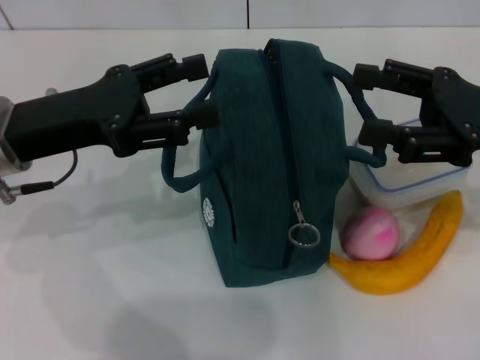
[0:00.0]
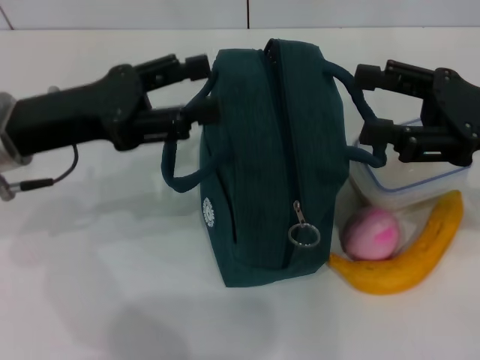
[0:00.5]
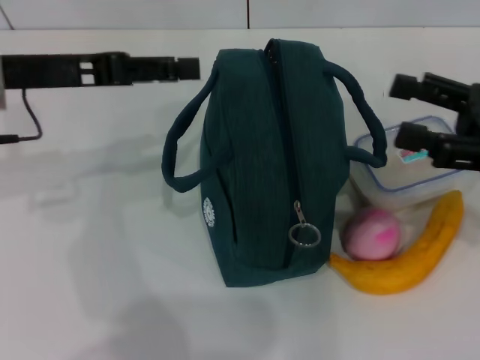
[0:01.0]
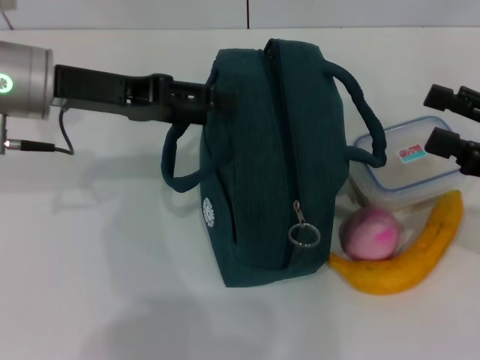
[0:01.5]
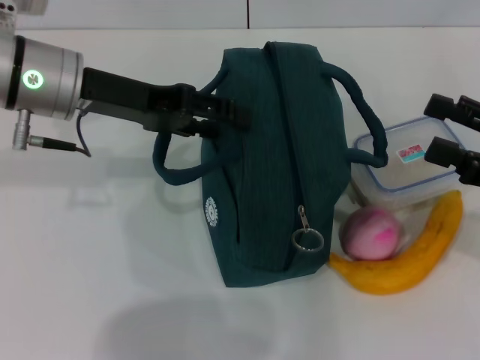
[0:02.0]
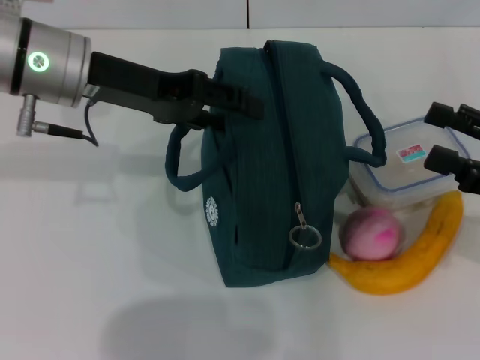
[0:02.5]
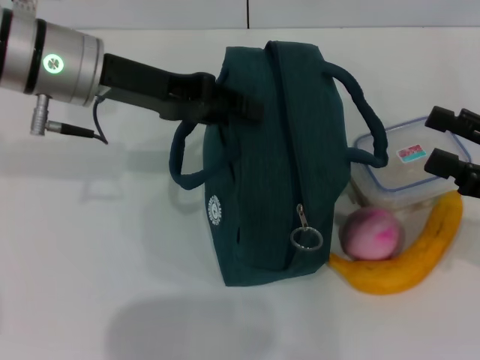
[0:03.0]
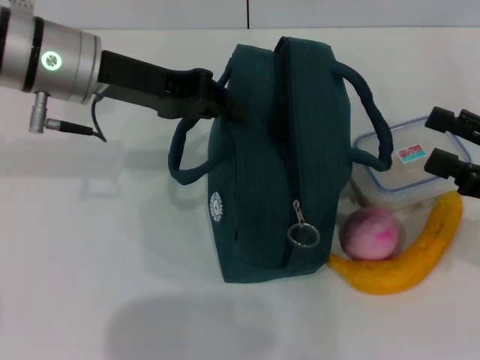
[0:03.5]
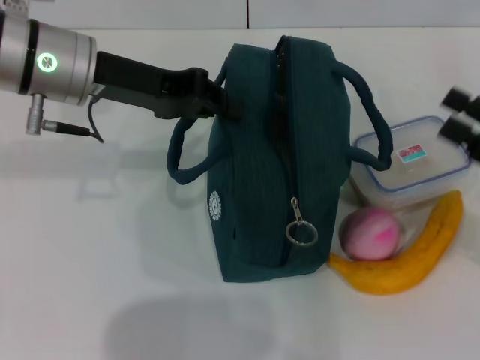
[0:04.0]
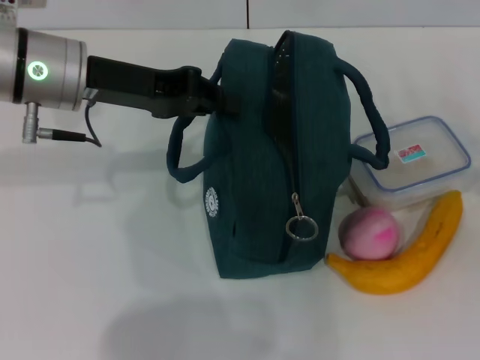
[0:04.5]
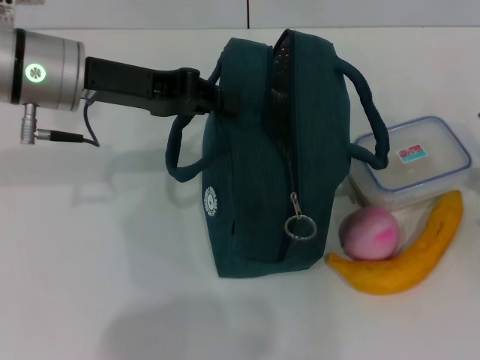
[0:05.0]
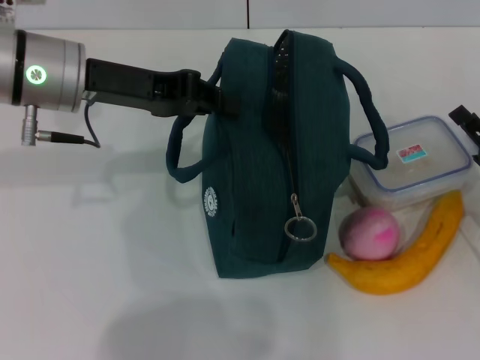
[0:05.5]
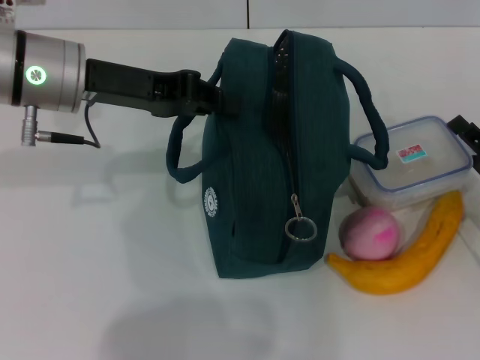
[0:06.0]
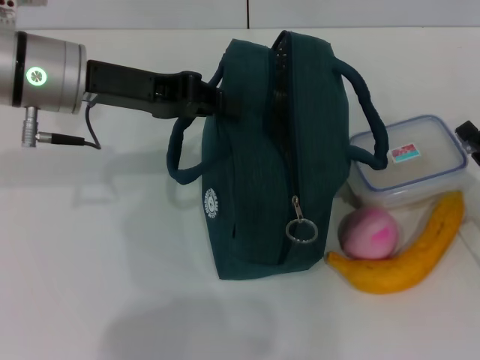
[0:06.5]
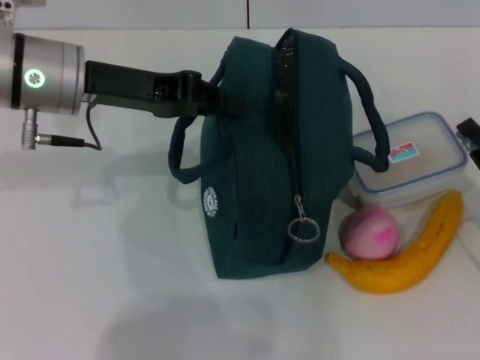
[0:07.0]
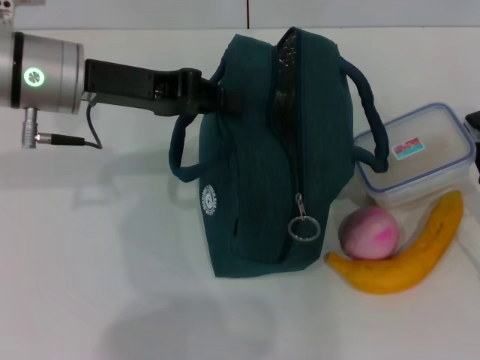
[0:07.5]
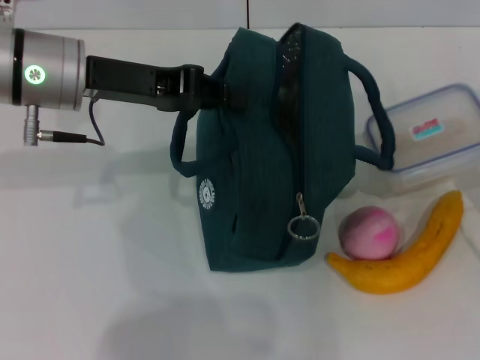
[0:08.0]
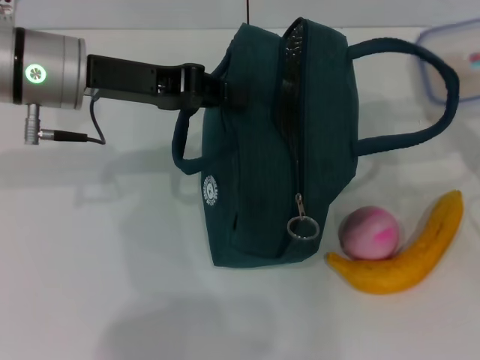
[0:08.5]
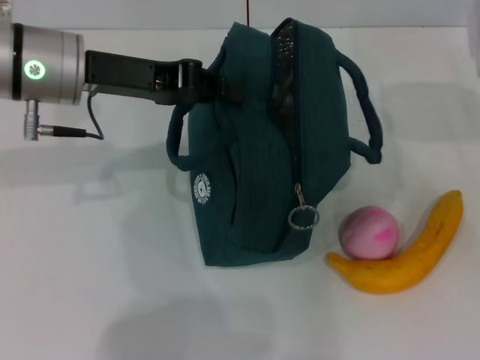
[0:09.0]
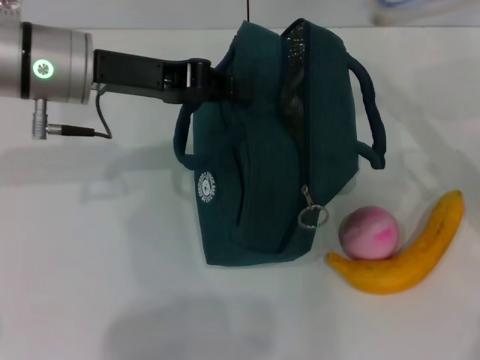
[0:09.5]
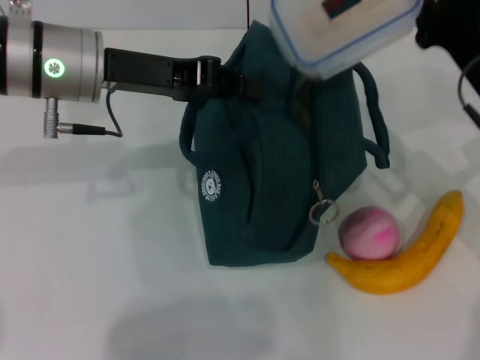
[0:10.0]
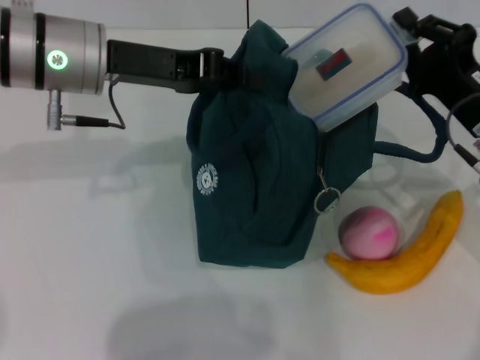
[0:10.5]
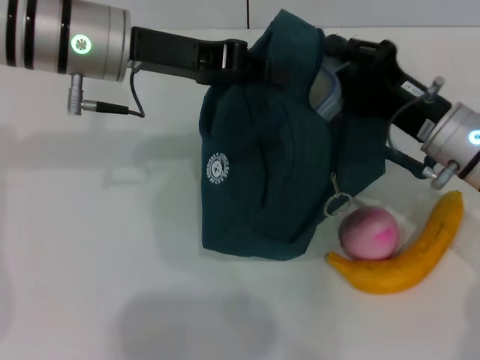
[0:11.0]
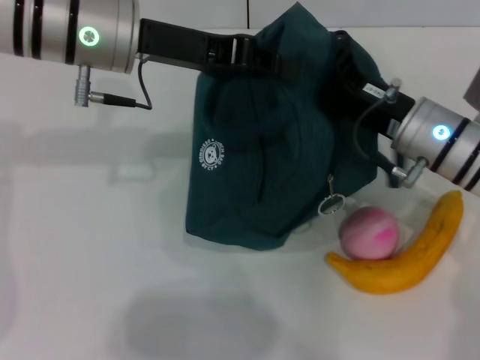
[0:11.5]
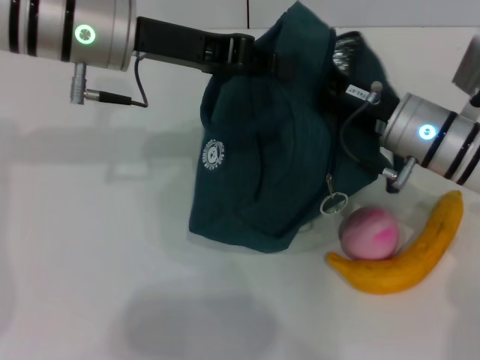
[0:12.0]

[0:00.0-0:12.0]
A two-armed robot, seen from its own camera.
Step, 0:00.0 to 0:03.5: Hold the lunch bag with your left hand.
Step, 0:04.0 to 0:07.5: Pick up the lunch box with your right hand.
0:00.0 to 0:02.0: The left gripper shifts approximately 5 cm forward; the right gripper goes approximately 5 cm to the right.
0:02.0 to 0:04.0: The left gripper closes.
0:04.0 to 0:06.0: The right gripper shifts roughly 10 cm downward.
0:06.0 to 0:08.0: The right gripper closes up.
0:08.0 to 0:10.0: The right gripper travels forward, to the left and upward by some 15 cm.
0:10.0 to 0:12.0: The right gripper travels to the left by approximately 5 cm.

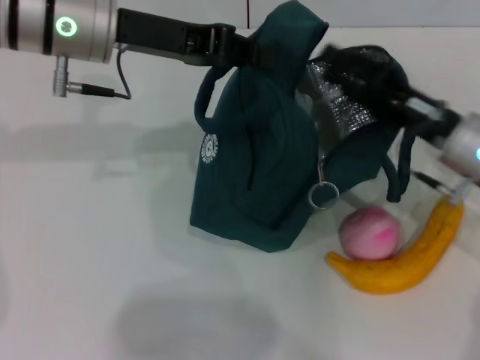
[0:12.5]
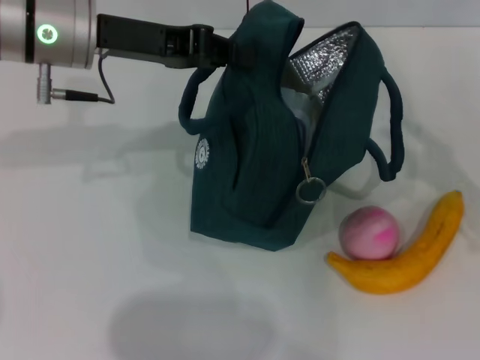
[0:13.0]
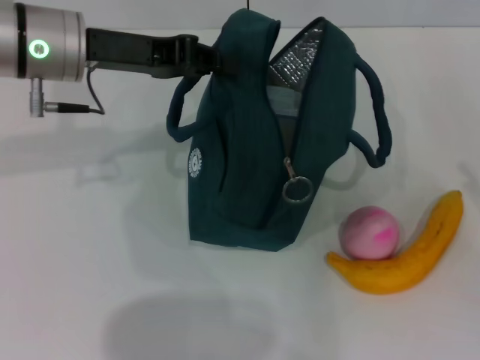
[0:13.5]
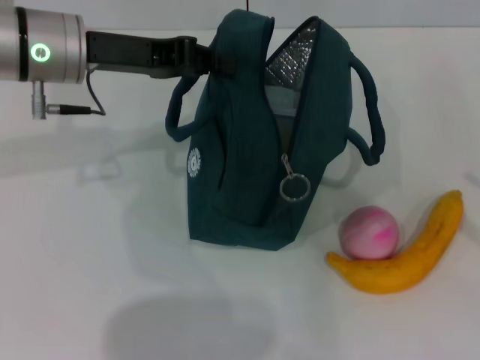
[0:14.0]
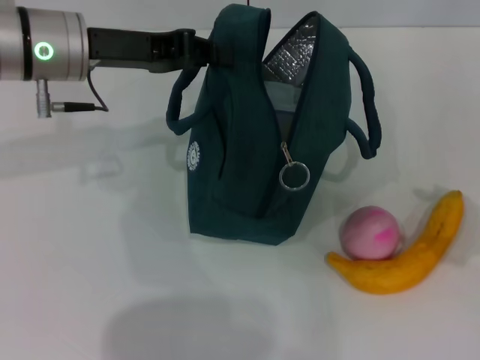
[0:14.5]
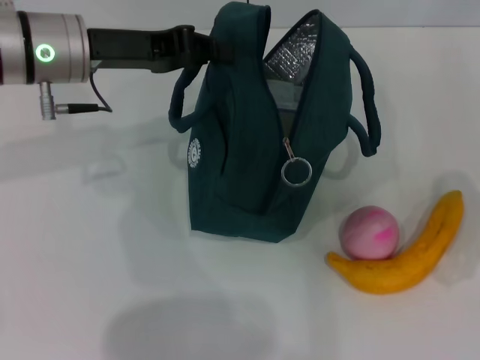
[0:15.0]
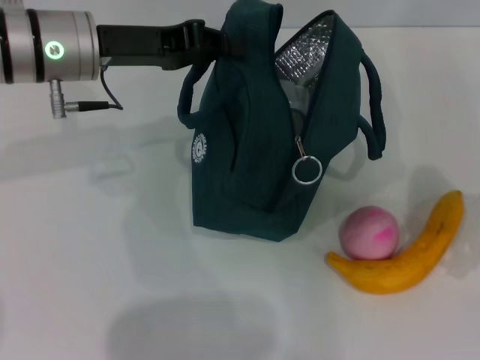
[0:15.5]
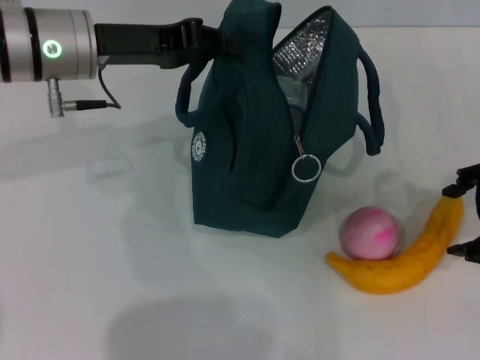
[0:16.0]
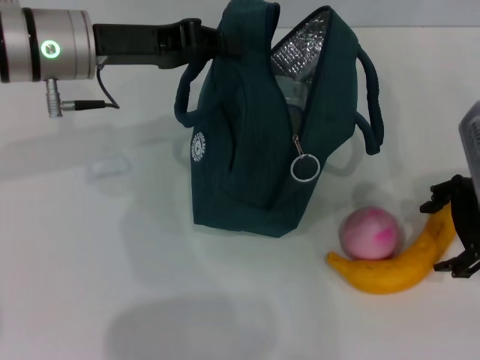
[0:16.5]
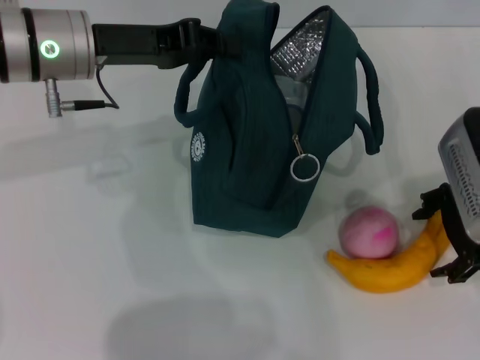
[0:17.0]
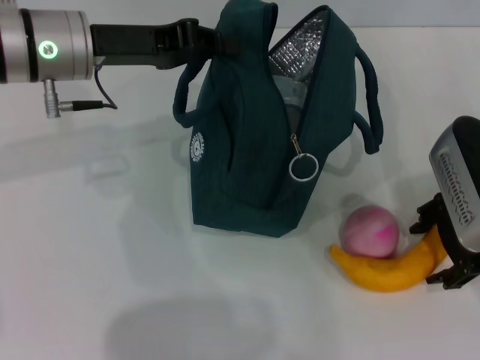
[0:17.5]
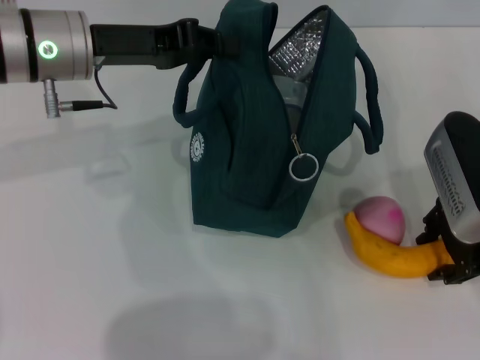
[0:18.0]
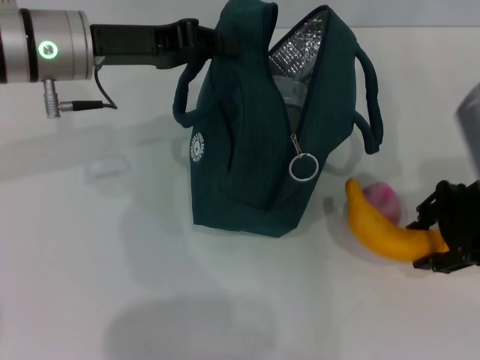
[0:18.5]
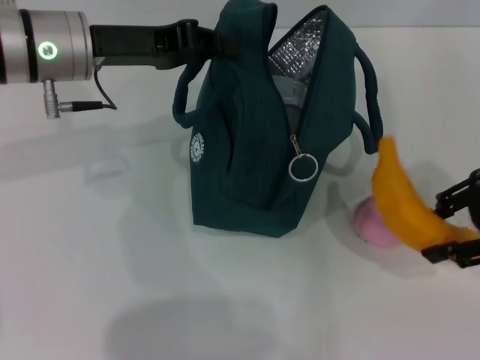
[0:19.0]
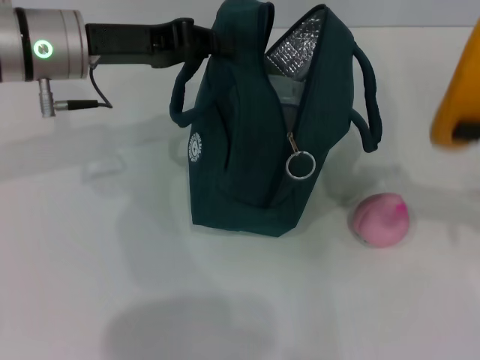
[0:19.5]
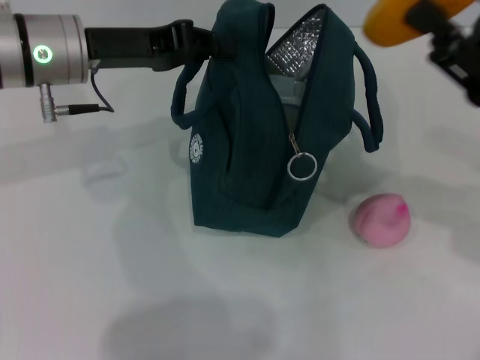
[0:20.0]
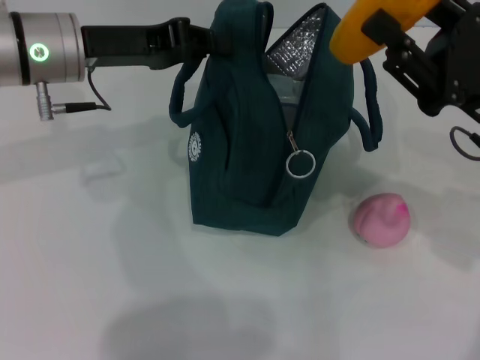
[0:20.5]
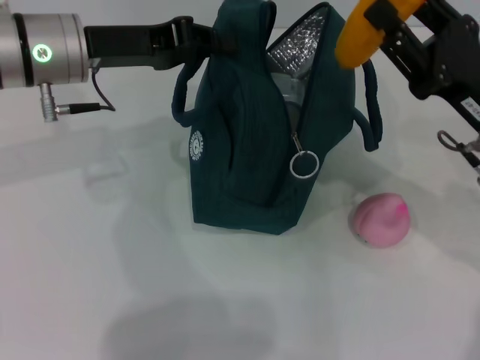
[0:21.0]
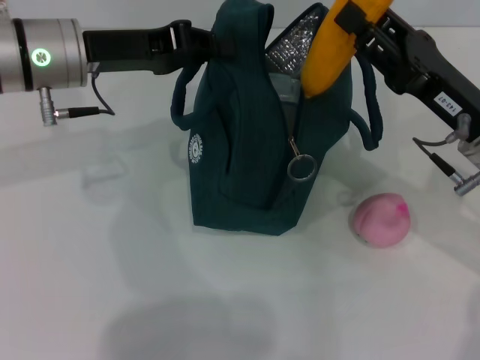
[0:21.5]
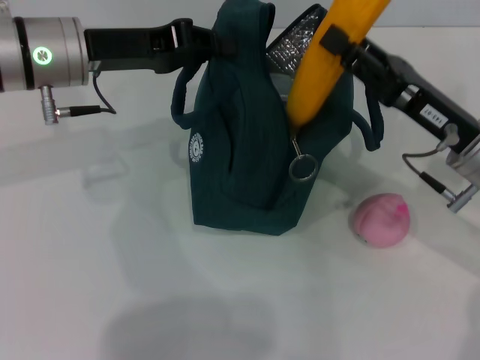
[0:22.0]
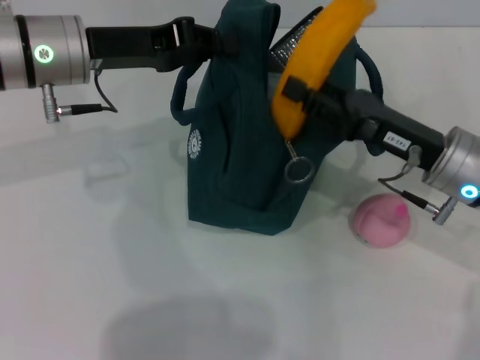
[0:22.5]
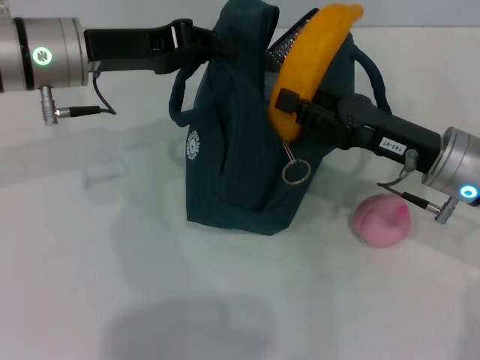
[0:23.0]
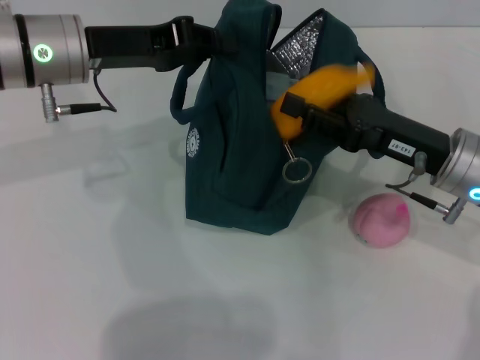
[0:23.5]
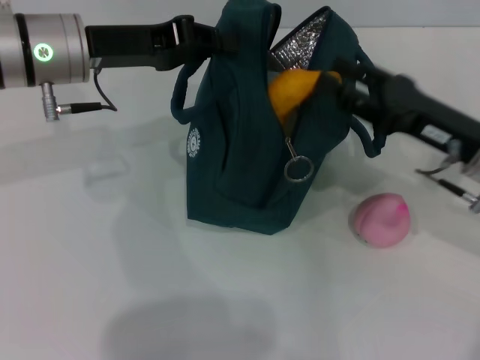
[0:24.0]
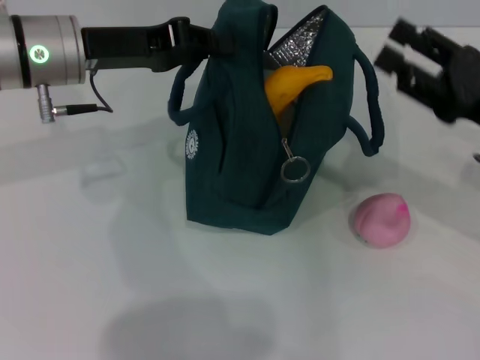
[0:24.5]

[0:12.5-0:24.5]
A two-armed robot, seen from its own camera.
Step, 0:12.5 to 0:18.0: Take the banana with your right hand.
Step, 0:18.5 to 0:23.5: Put the banana into the lunch bag with your right hand.
0:12.5 to 0:14.5: The right gripper travels to the right, upward and backward by about 20 cm, and opens.
0:14.5 to 0:16.5: The right gripper shifts about 15 cm to the left and forward.
0:16.5 to 0:18.5: The right gripper closes up.
0:18.5 to 0:20.5: The right gripper goes to the right and returns, about 10 cm each way.
0:20.5 to 0:22.5: The right gripper ends up roughly 5 cm from where it was.
0:22.5 to 0:24.5: The right gripper moves to the right, approximately 10 cm.

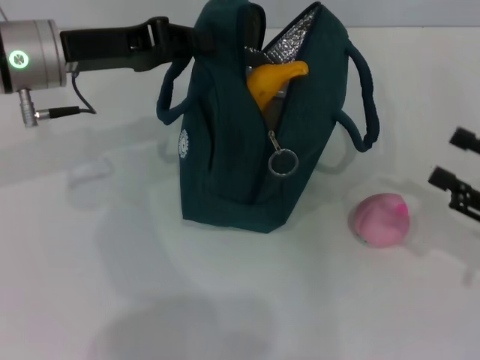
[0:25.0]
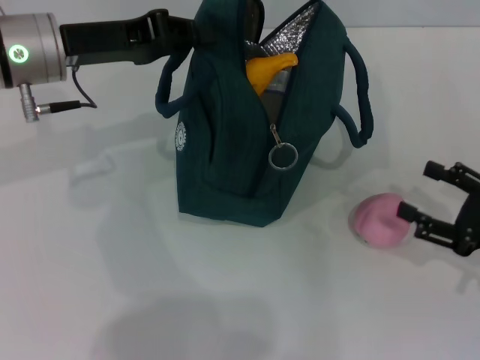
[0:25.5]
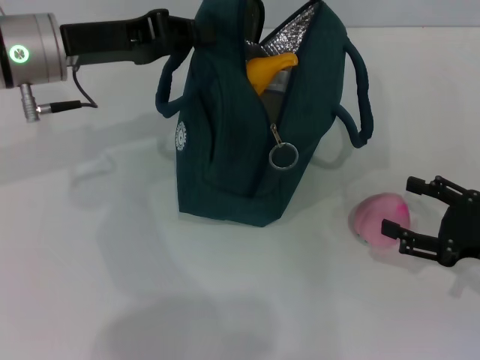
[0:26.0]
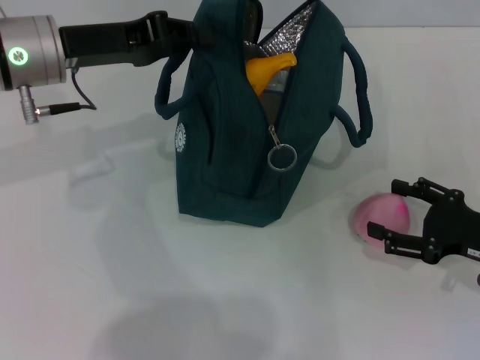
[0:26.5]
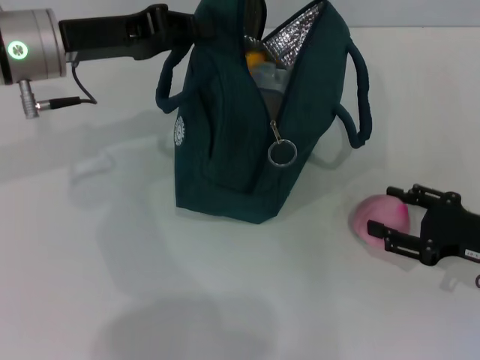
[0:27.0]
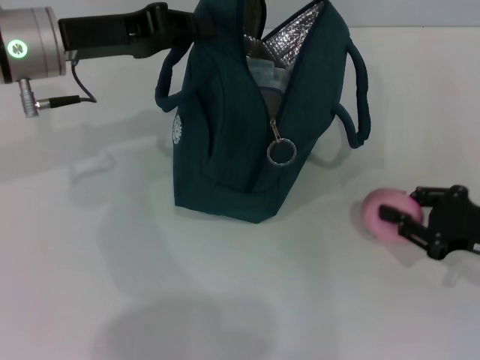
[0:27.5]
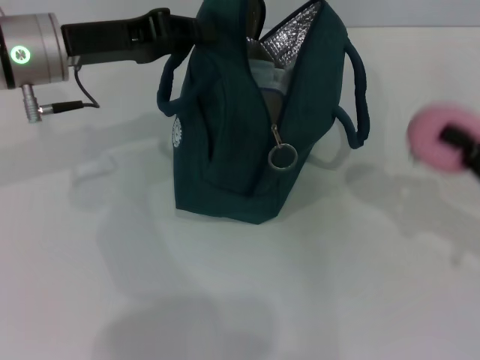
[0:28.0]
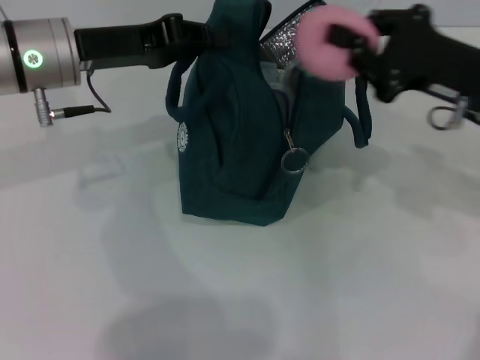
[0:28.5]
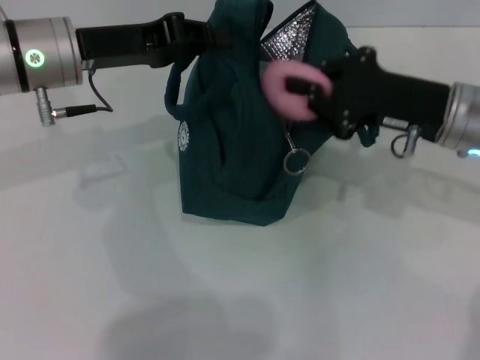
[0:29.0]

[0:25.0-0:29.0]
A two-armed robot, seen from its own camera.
Step, 0:25.0 to 0:27.0: Grab the peach with your right hand.
0:25.0 to 0:27.0: The right gripper ends up some 5 cm from where it was.
0:27.0 to 0:29.0: The right gripper travels to the left, forward and upward by about 15 cm, and closes up.
